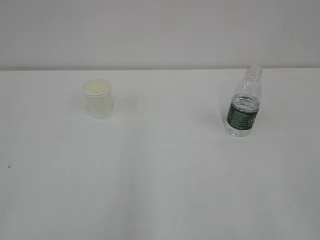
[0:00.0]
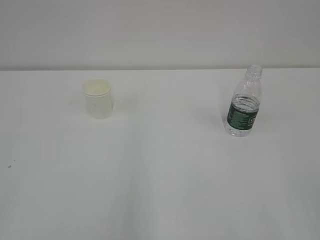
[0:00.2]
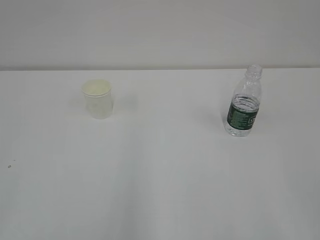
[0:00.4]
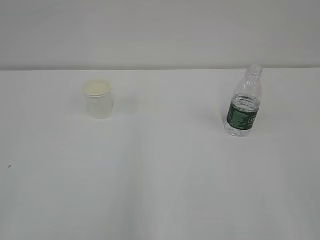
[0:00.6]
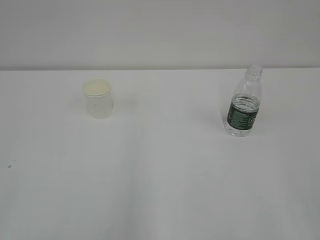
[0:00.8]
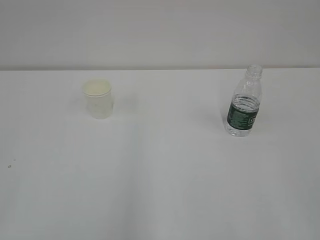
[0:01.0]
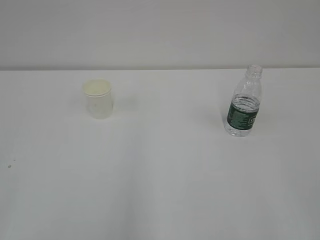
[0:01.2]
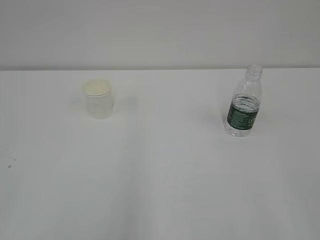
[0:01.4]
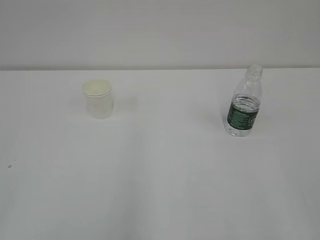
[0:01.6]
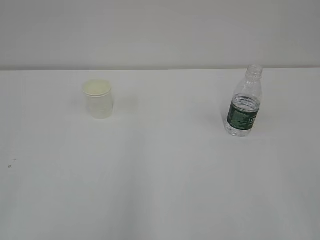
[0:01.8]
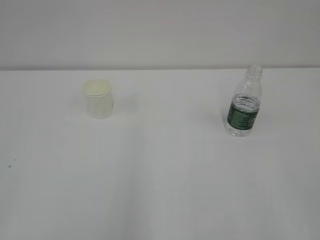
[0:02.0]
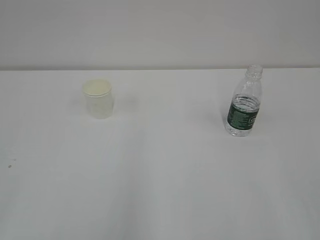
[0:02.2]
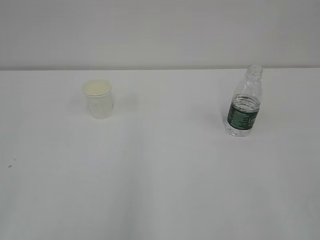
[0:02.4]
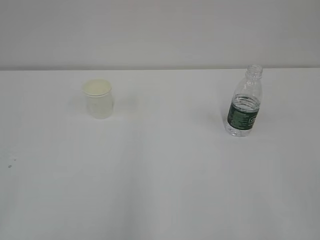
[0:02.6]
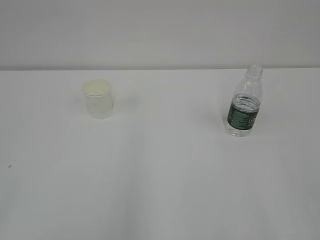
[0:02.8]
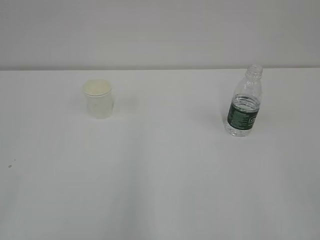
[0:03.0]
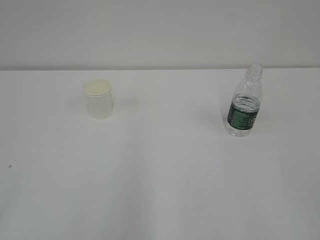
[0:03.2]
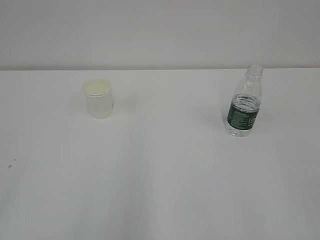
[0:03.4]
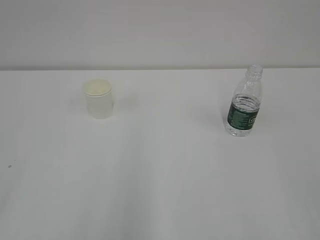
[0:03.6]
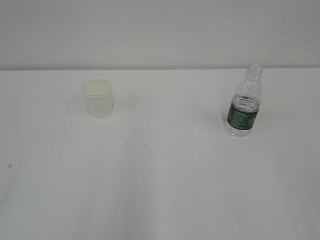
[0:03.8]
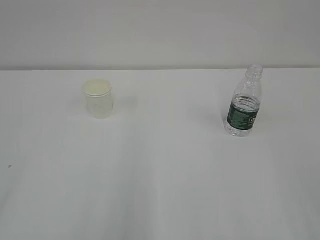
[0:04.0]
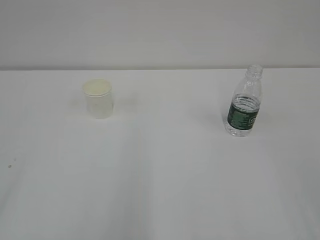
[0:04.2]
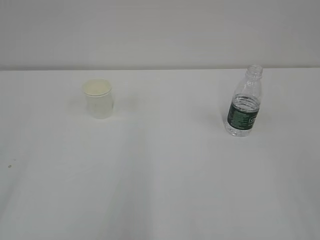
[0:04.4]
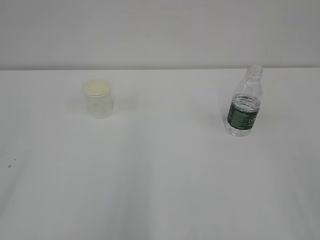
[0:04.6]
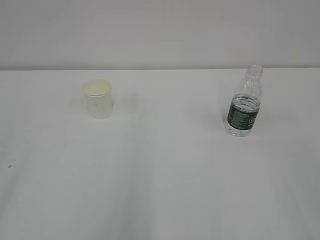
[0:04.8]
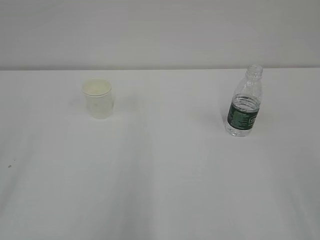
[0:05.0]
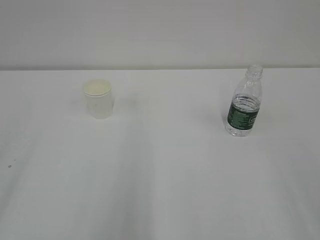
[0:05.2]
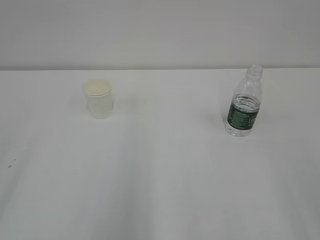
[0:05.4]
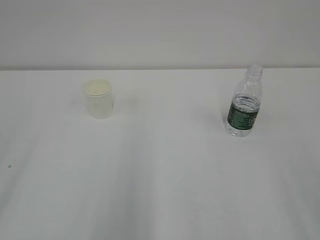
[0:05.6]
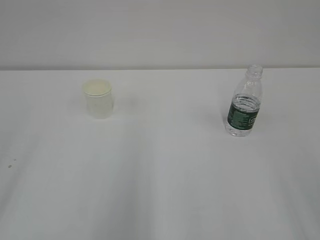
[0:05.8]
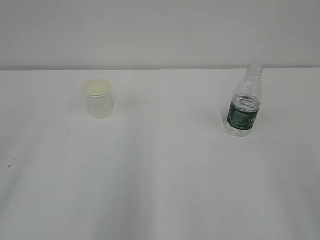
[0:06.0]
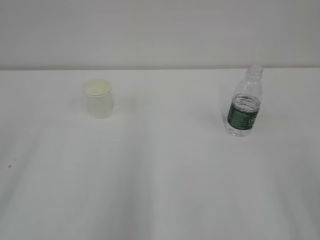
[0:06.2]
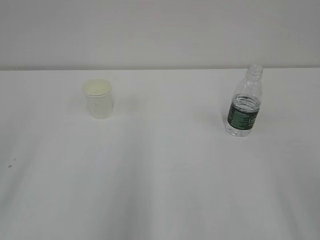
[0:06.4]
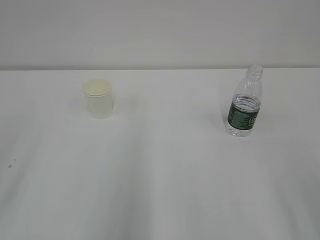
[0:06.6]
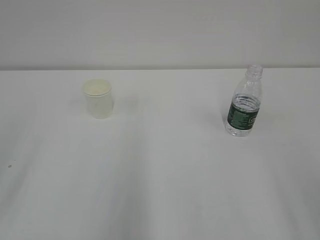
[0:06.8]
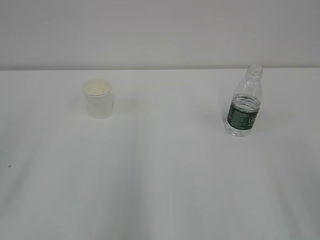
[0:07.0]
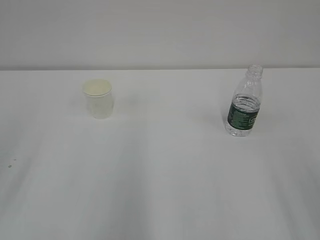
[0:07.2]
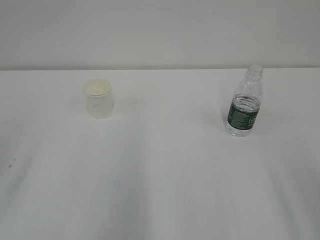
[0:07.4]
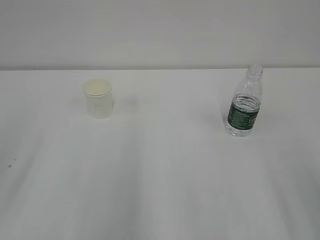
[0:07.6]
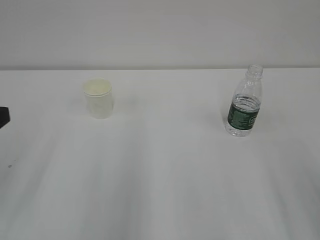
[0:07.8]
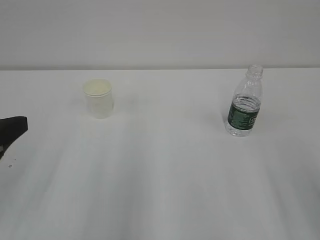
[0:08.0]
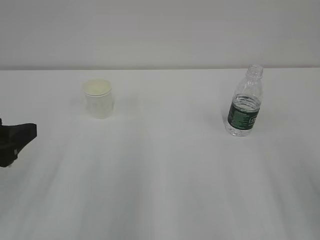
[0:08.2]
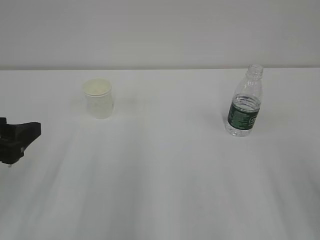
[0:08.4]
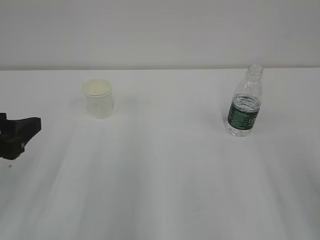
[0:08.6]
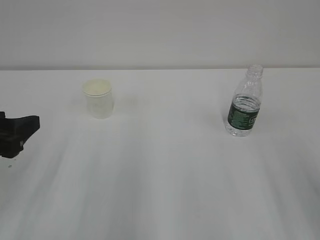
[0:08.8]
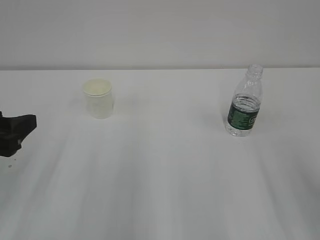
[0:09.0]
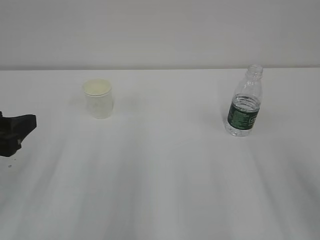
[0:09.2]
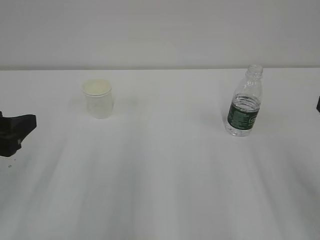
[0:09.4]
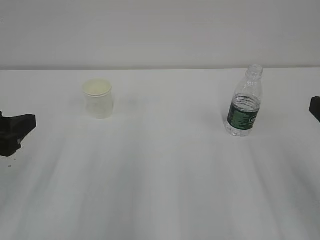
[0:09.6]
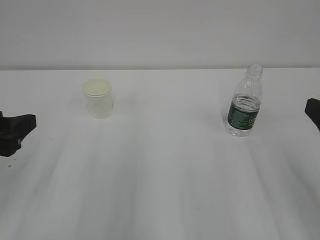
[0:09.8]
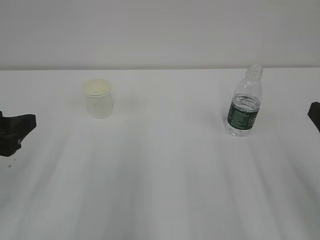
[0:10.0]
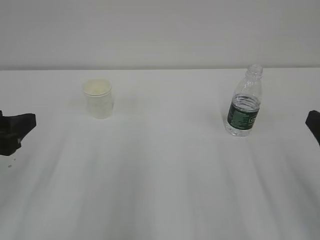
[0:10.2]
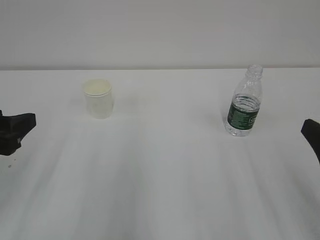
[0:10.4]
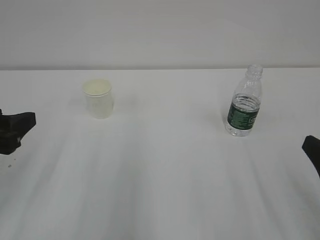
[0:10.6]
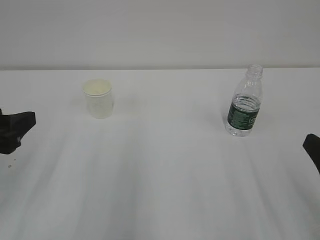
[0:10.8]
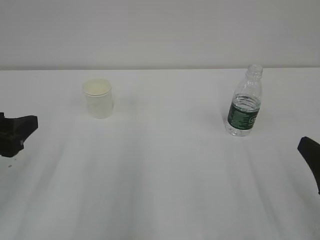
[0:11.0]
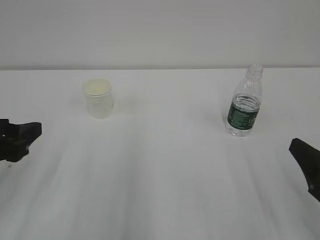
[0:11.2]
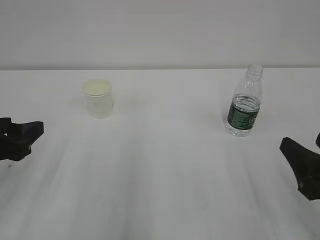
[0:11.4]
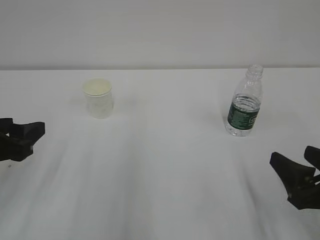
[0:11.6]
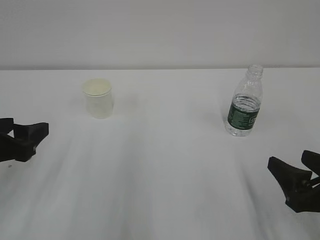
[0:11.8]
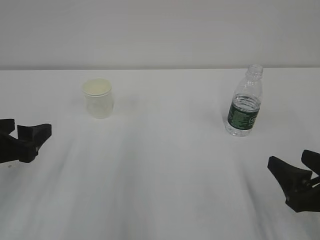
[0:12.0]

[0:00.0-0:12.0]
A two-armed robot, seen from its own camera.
0:01.6 to 0:03.0: The two grippers keep their place.
0:07.6 to 0:09.0: The left gripper heads downward, covering roughly 5 cm.
0:09.0 to 0:10.4: The right gripper goes approximately 5 cm downward.
0:10.4 to 0:12.0: The right gripper moves downward, about 5 cm; the left gripper opens its fingers.

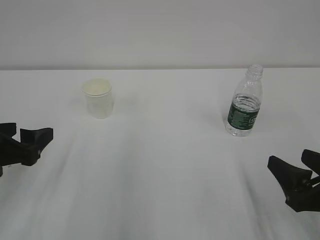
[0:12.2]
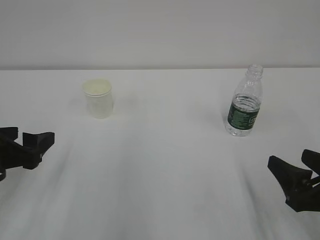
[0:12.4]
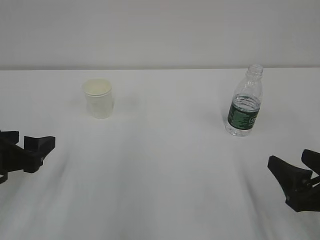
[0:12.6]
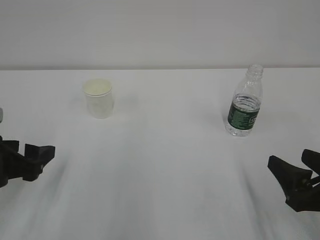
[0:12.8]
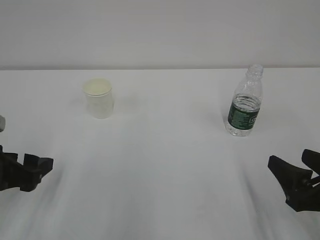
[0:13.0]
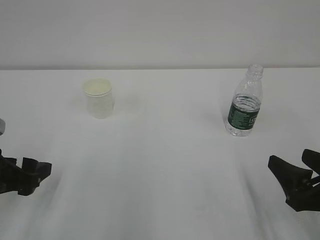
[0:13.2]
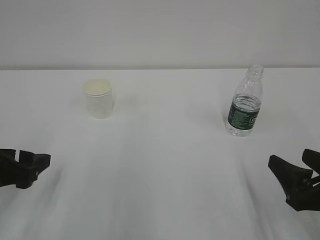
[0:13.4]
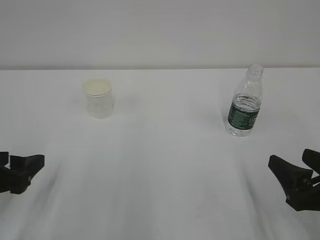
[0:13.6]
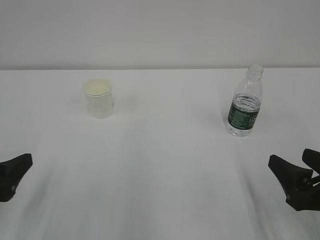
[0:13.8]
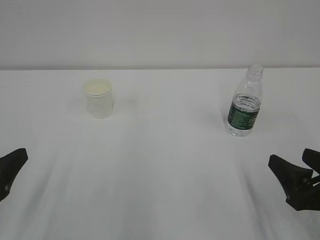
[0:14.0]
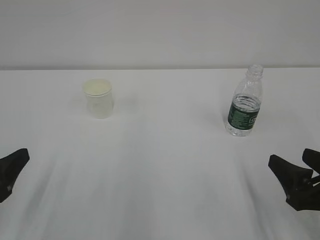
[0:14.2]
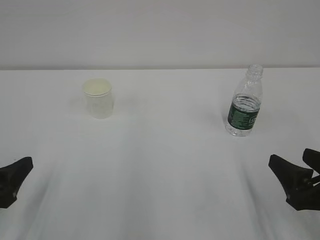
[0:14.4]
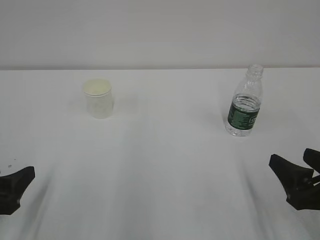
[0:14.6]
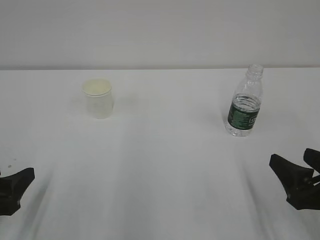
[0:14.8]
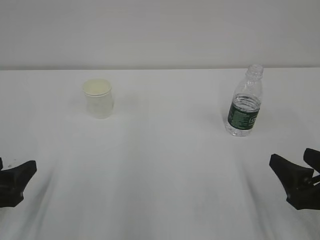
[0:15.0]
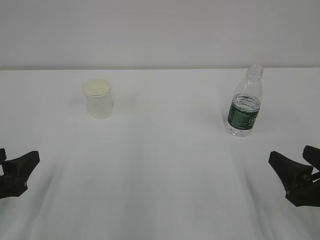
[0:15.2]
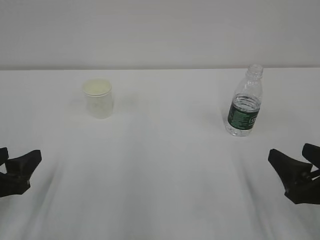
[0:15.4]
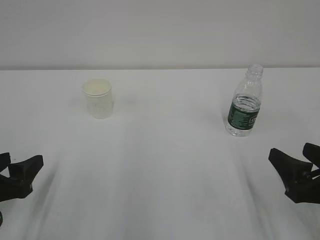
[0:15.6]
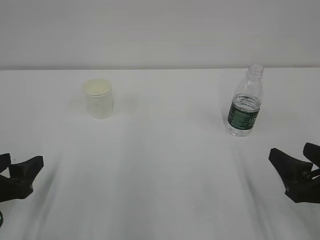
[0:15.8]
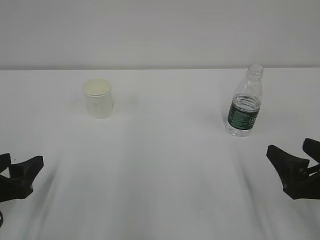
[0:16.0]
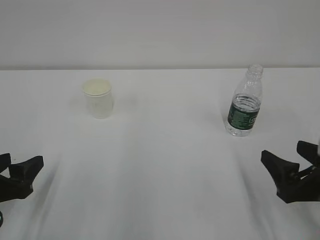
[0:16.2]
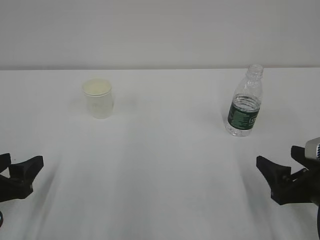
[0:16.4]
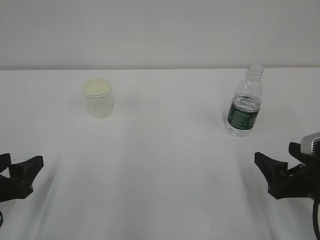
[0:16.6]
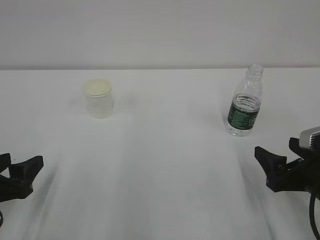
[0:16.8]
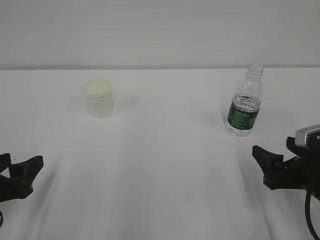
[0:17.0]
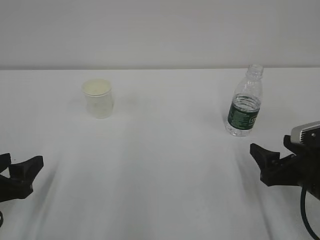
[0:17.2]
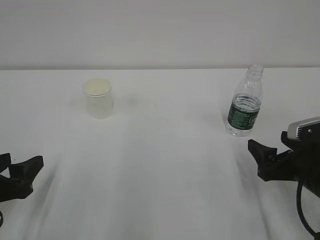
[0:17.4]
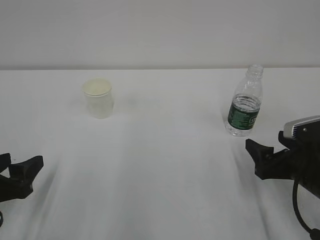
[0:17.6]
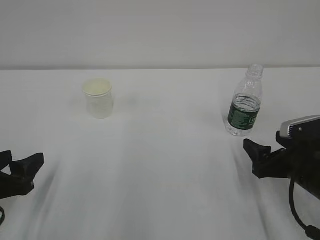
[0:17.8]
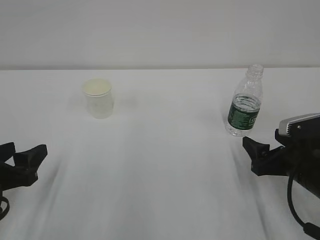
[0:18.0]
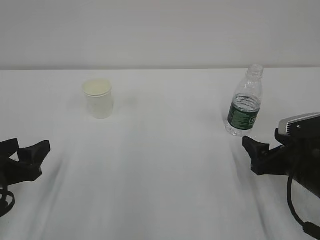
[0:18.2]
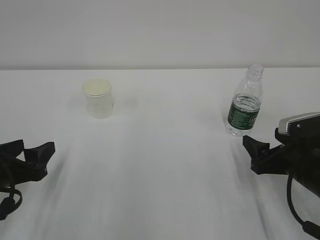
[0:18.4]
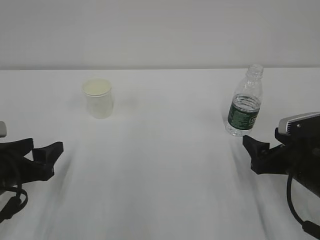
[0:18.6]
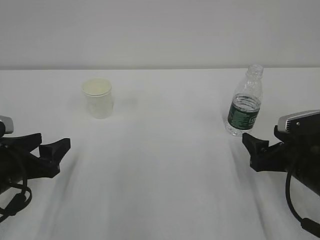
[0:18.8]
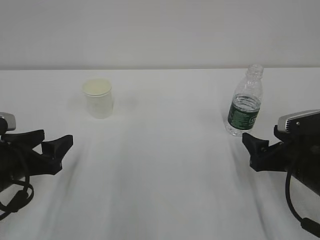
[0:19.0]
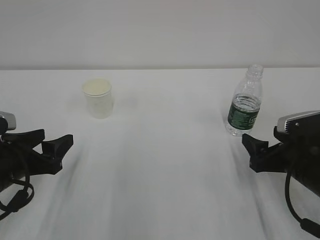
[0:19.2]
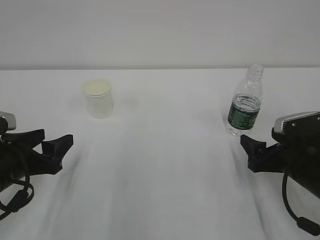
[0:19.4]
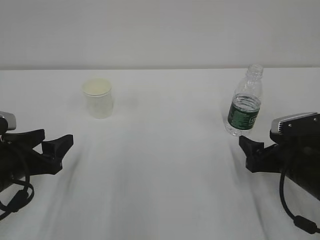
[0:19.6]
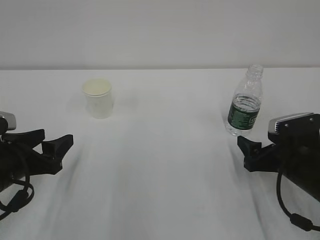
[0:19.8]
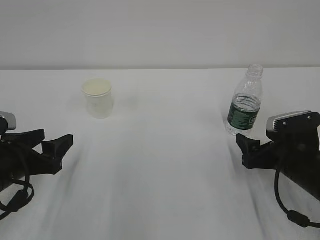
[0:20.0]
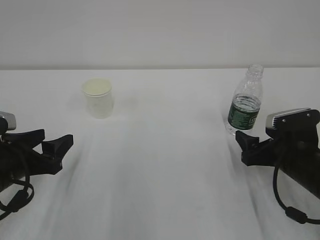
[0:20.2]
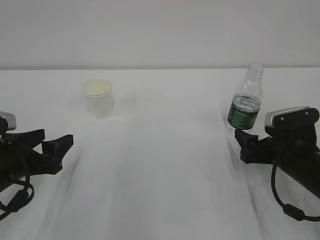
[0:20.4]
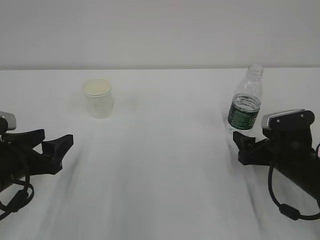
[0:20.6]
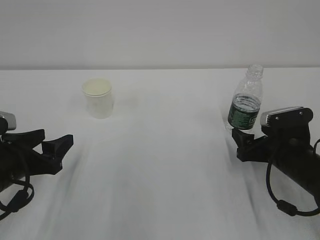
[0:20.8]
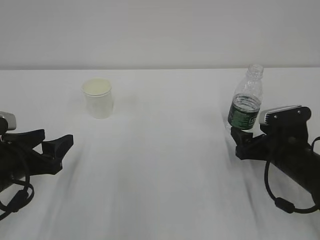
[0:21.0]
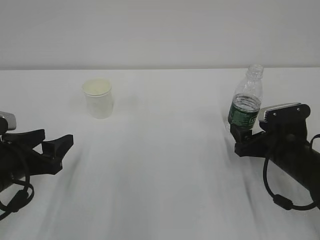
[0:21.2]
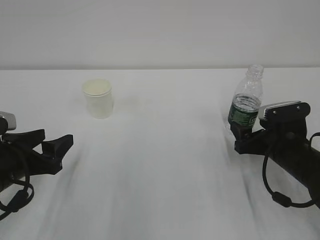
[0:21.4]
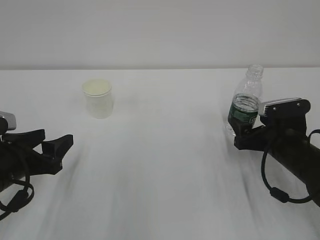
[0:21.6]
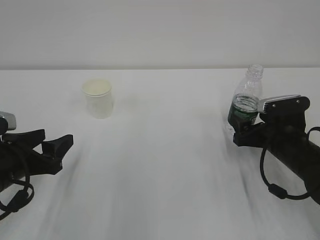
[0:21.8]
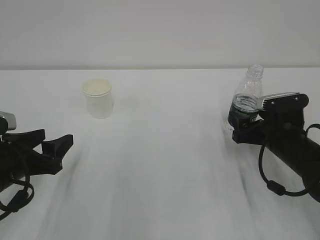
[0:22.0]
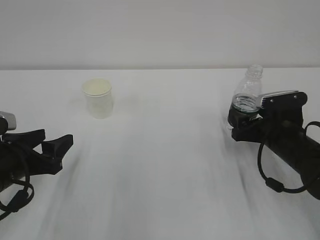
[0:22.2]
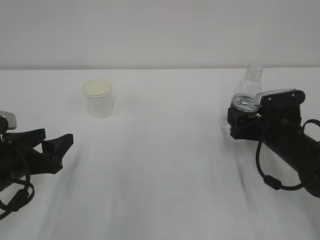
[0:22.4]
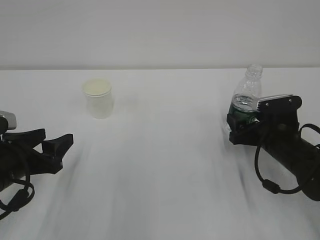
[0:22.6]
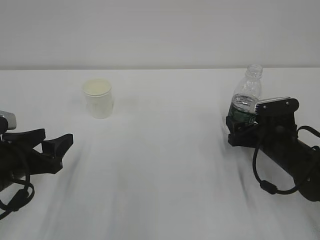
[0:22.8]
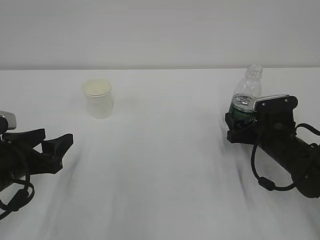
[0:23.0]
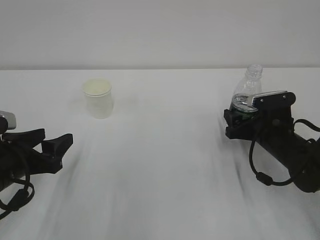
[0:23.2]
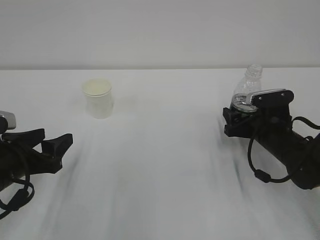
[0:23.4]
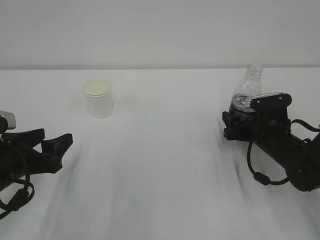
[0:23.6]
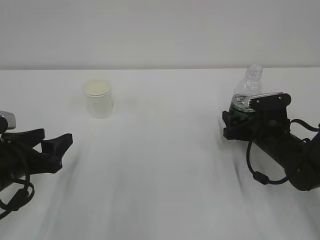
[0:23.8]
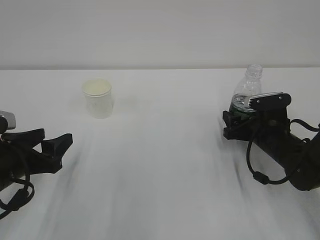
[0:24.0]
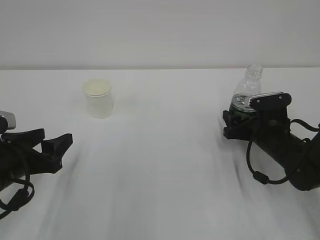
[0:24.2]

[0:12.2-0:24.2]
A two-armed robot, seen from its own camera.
0:12.2 to 0:13.8: The left gripper moves backward, about 5 cm.
0:13.8 to 0:16.6: The grippers move only a little.
0:16.6 to 0:18.2: The right gripper changes place by some 5 cm.
0:18.2 to 0:21.2: There are only small adjustments of the grippers.
0:21.2 to 0:24.2: The grippers move only a little.
